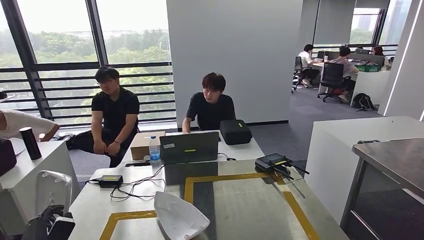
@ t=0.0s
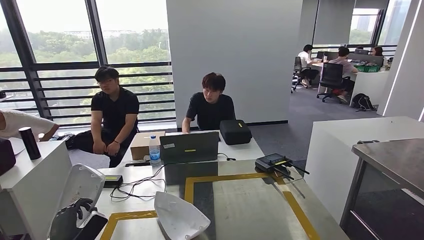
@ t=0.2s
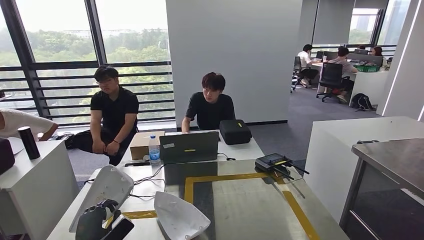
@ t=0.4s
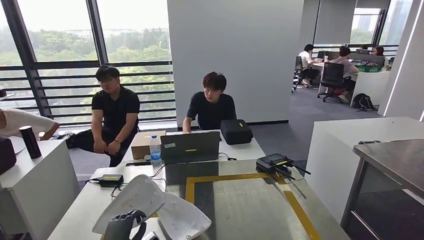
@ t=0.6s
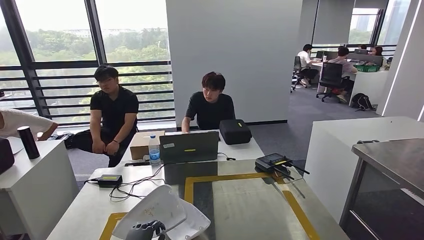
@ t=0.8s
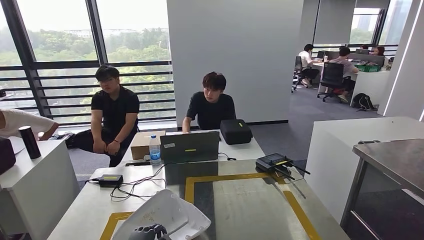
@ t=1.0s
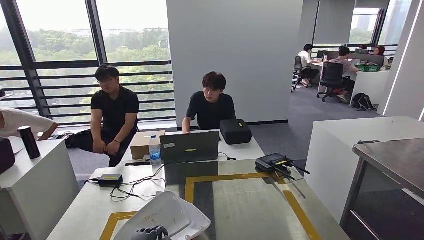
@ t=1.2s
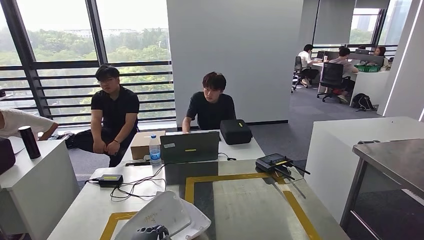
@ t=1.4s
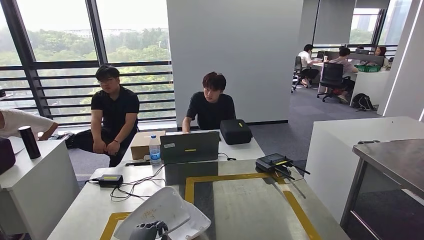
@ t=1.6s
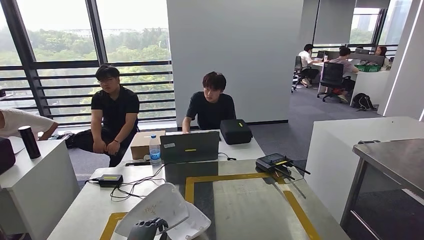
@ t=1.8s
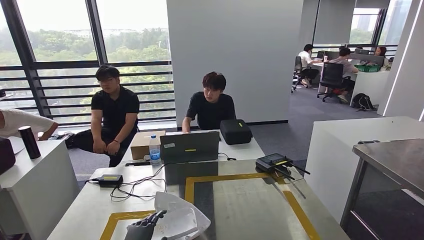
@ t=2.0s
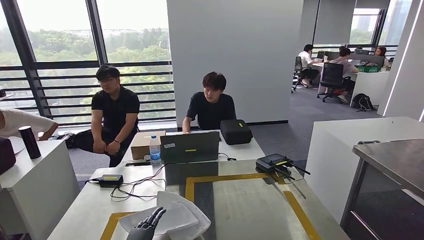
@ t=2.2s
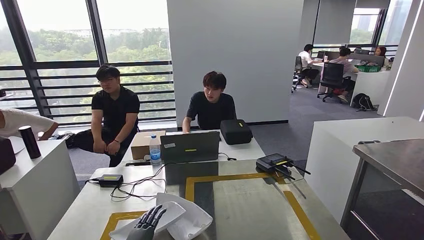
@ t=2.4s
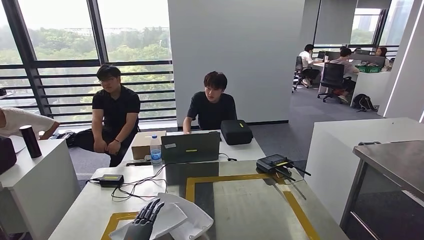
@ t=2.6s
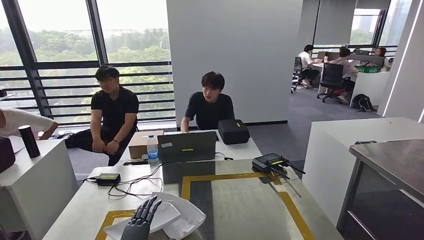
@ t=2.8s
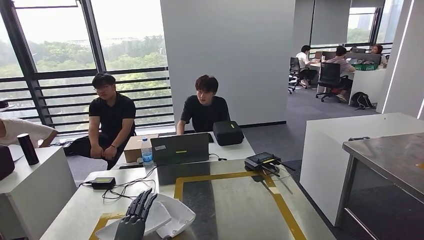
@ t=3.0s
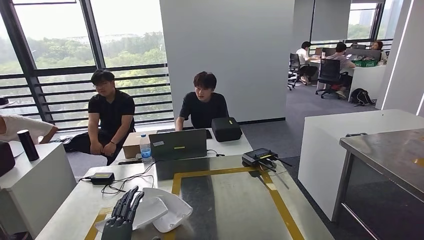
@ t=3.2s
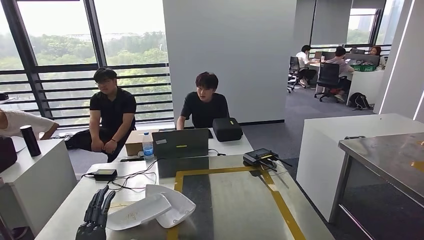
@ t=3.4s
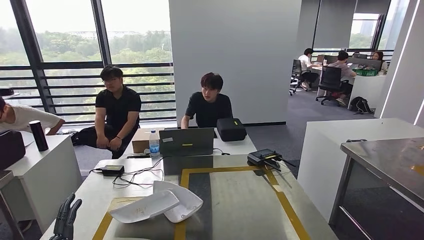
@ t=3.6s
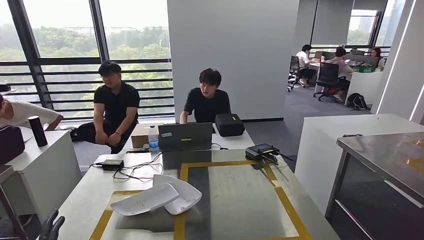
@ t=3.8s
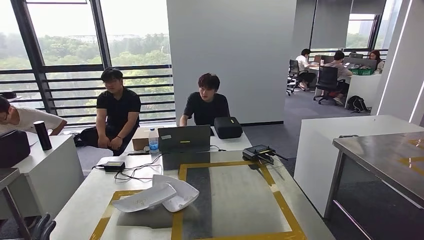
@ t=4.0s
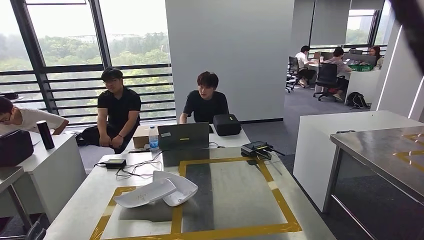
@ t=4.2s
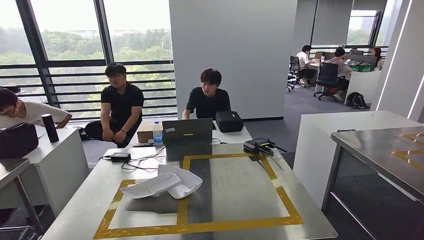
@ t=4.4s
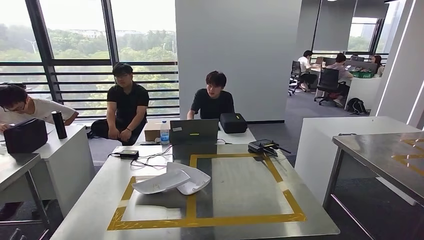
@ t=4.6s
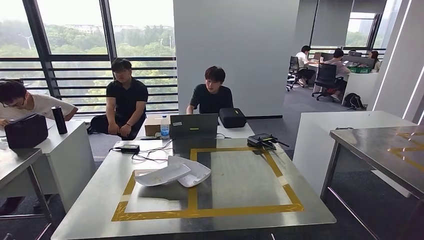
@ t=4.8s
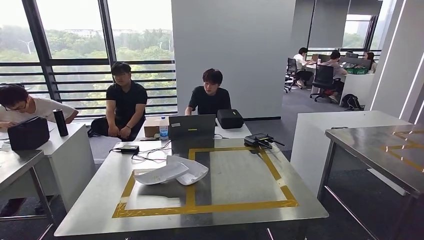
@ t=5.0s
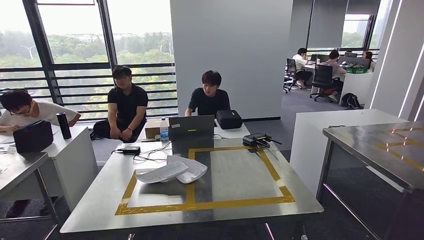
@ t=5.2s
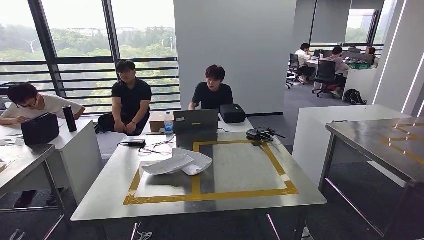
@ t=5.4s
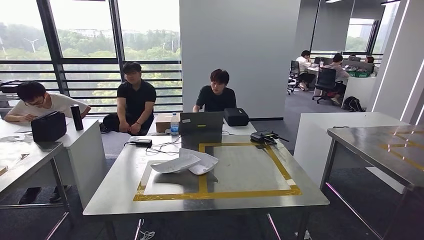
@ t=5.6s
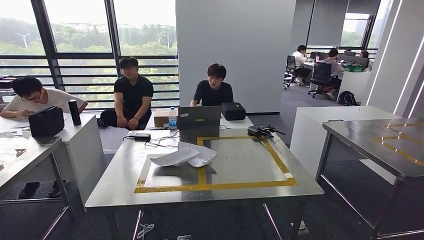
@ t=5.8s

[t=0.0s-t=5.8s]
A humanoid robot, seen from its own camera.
Step, t=0.0s to t=3.4s: Insert the small component into the corresponding slot on the workbench.
Step, t=4.2s to t=5.8s: Return to the initial position at the workbench.
t=0.0s to t=1.4s: The left hand shifts about 20 cm to the right.
t=1.4s to t=2.8s: The hands stay close to where they were, moving slightly.
